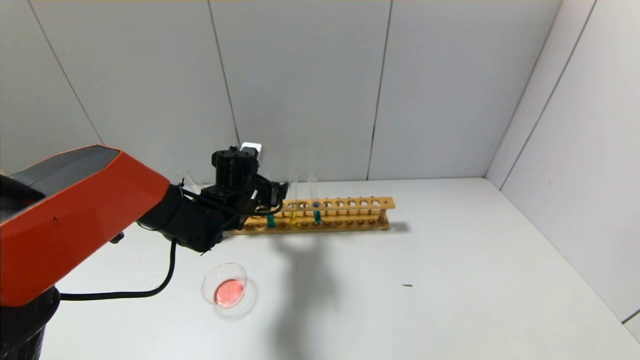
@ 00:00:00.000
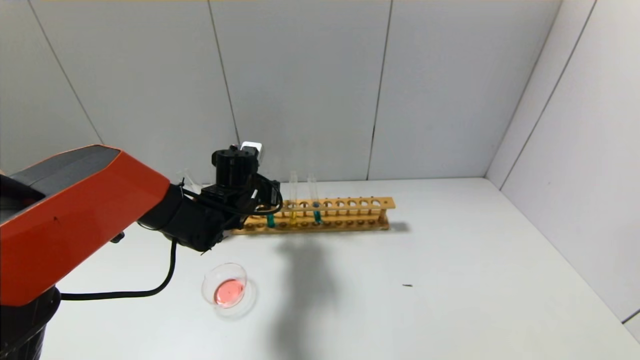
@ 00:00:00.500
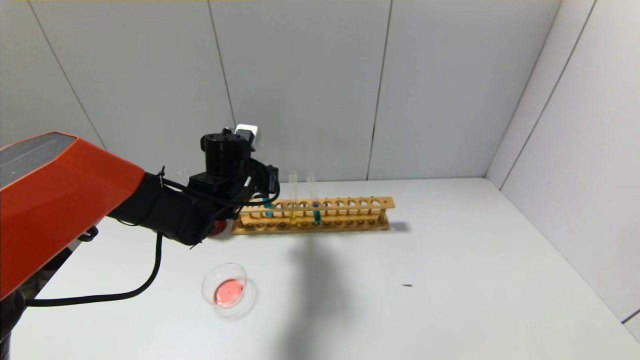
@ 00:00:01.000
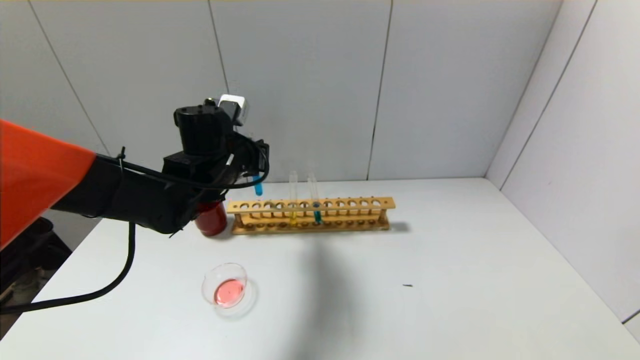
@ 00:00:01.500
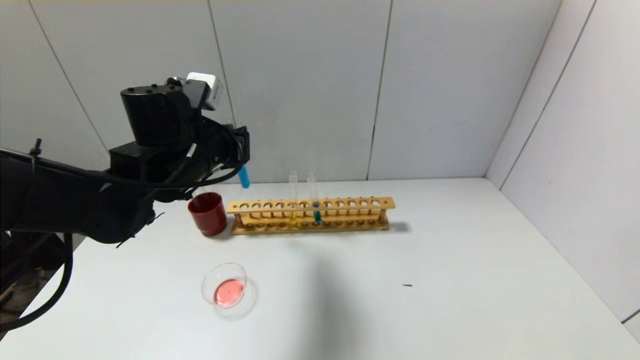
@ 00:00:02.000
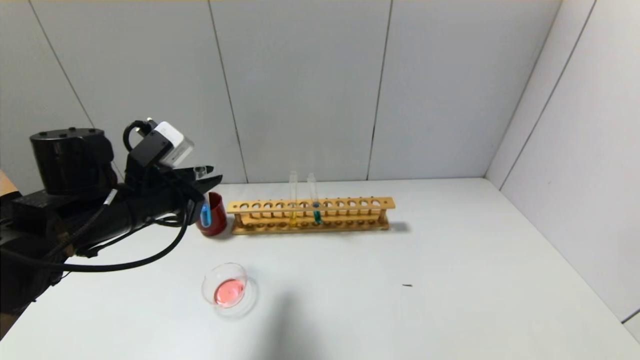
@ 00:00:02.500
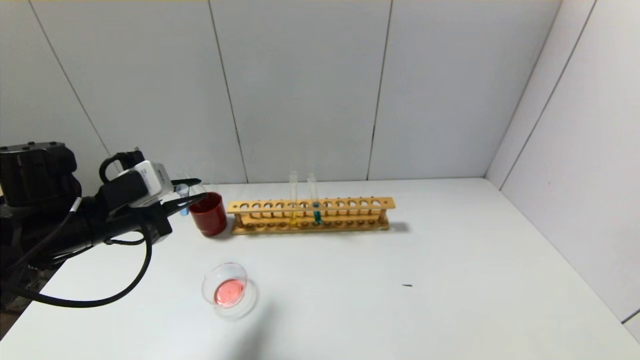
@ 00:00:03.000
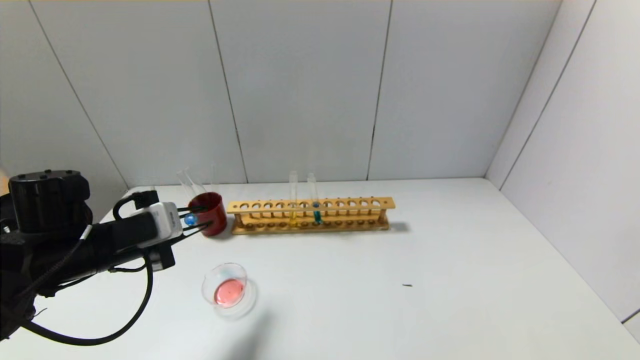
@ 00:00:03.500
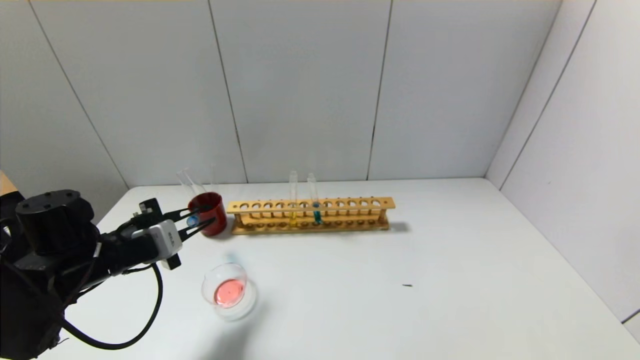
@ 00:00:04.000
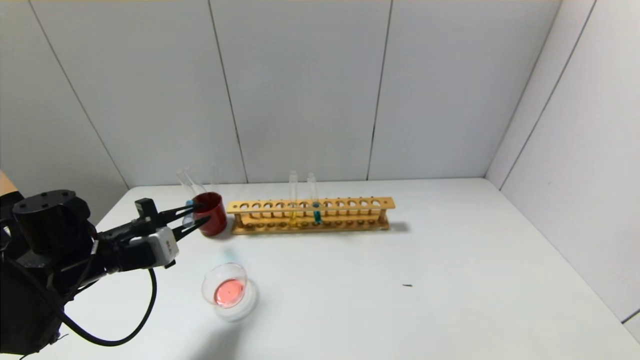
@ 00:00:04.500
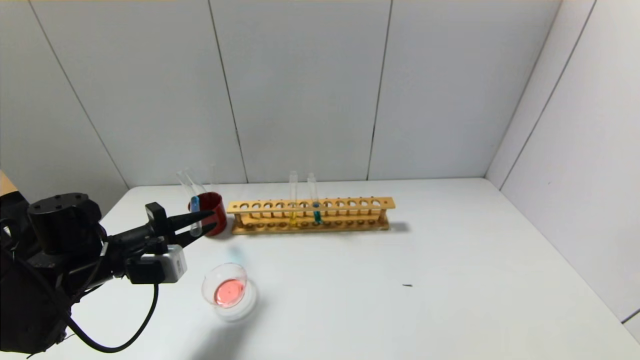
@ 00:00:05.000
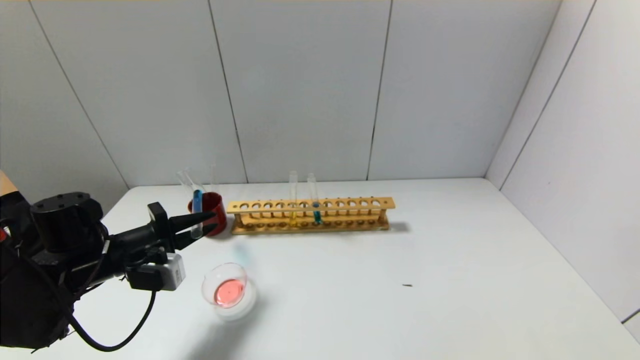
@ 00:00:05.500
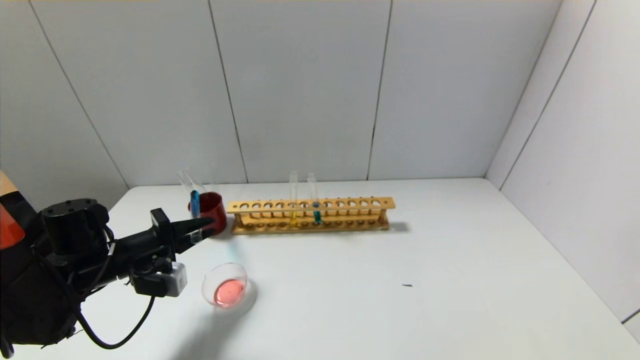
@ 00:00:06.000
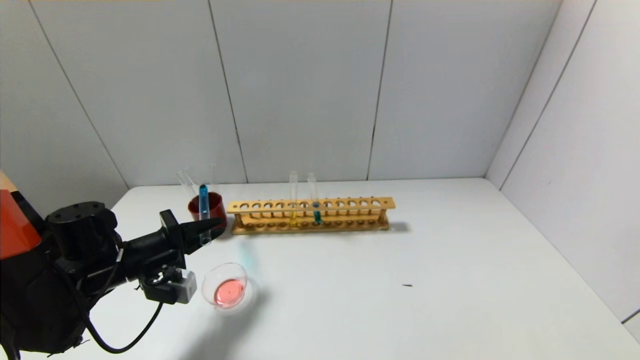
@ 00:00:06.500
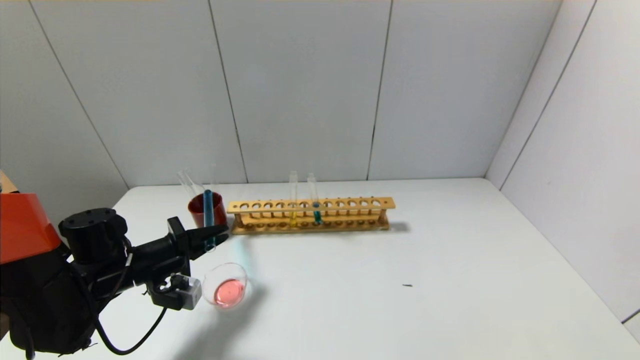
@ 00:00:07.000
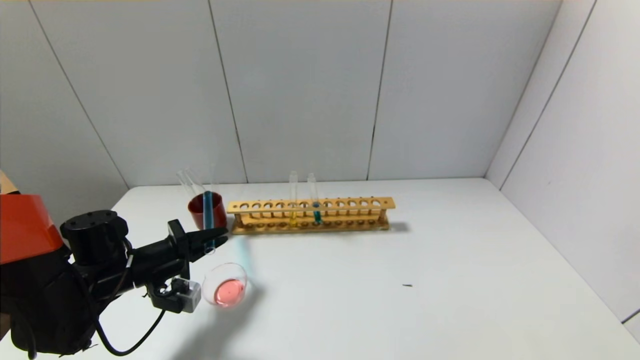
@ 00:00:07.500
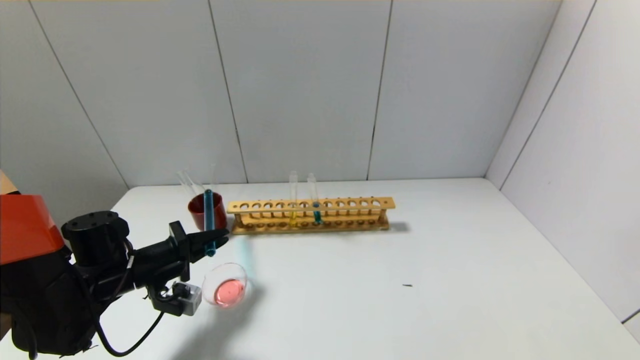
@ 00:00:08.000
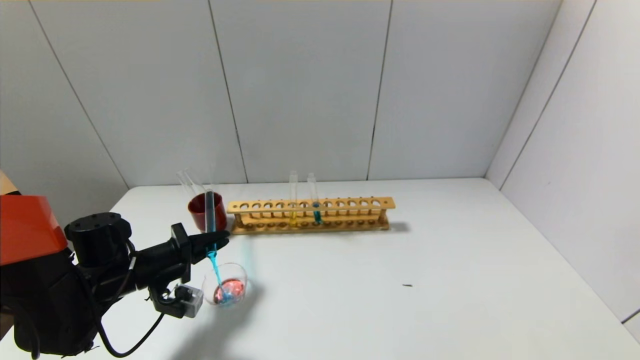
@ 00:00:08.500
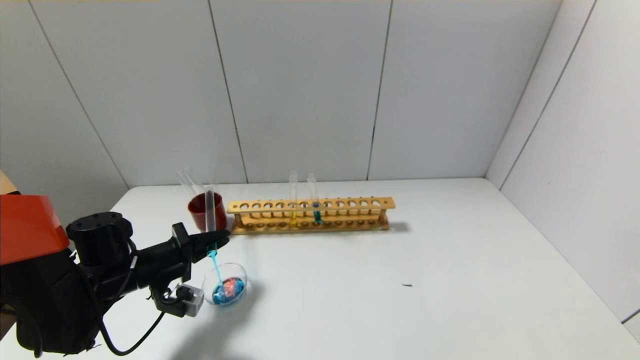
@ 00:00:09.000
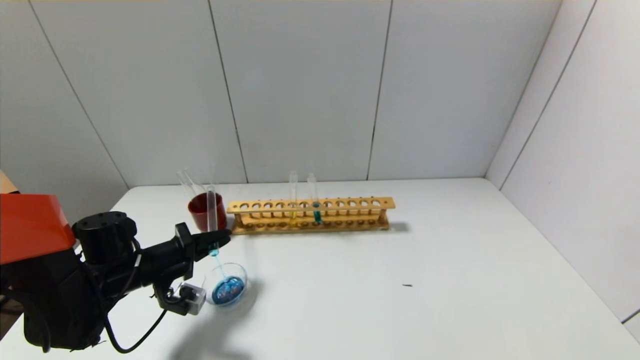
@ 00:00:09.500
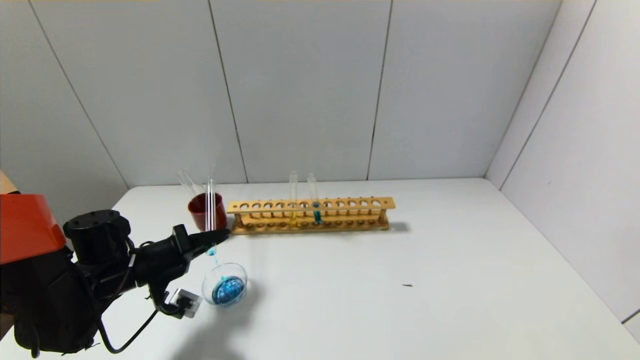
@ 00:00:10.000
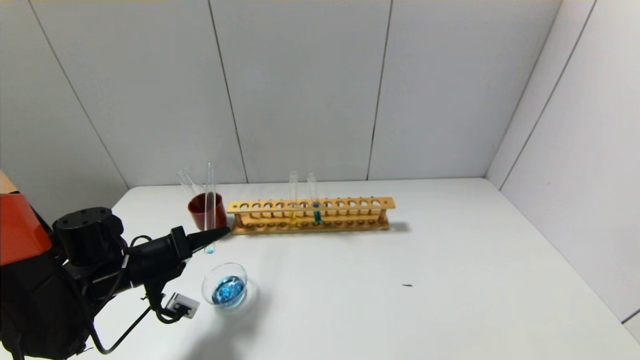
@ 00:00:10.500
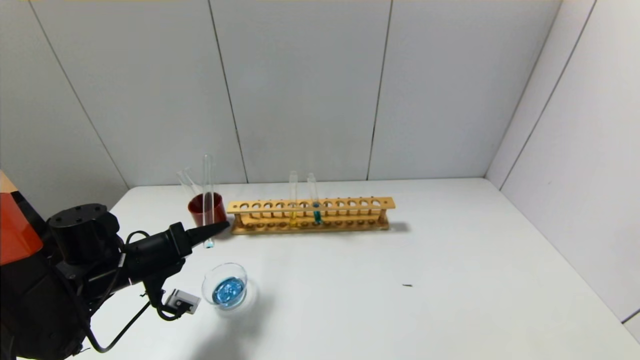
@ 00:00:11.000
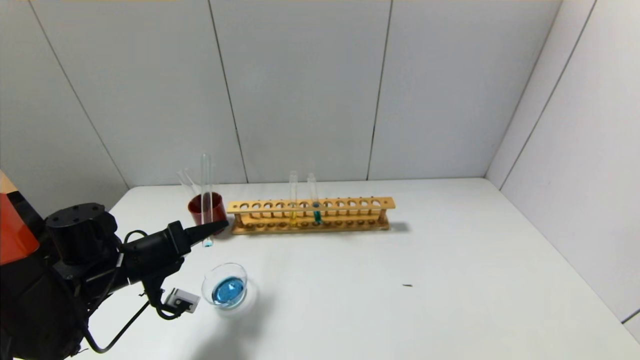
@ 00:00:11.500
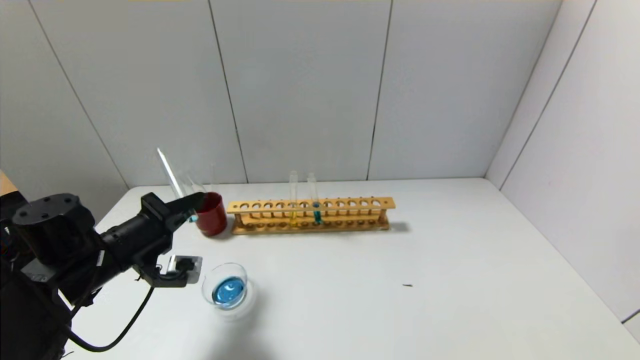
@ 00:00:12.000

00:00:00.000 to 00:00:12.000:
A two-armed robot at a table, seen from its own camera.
Step, 00:00:01.000 to 00:00:11.500: Pour the blue reagent into the graduated cylinder with the left gripper.
00:00:00.000 to 00:00:02.000: The left gripper shifts some 15 cm upward and backward, and closes up.
00:00:02.000 to 00:00:04.000: The left gripper is displaced downward, to the left and backward by some 15 cm.
00:00:06.000 to 00:00:08.000: The grippers make only small movements.
00:00:08.000 to 00:00:10.000: The grippers make only small movements.
00:00:10.000 to 00:00:12.000: The left gripper shifts approximately 5 cm upward.

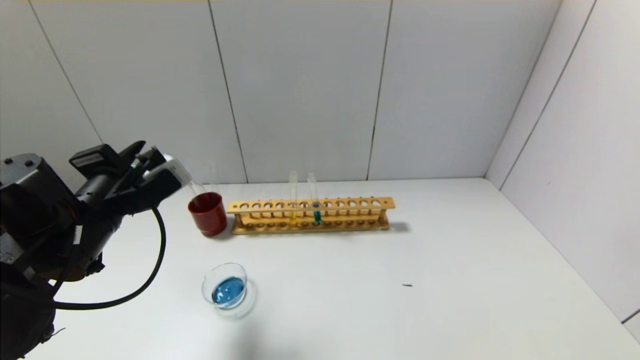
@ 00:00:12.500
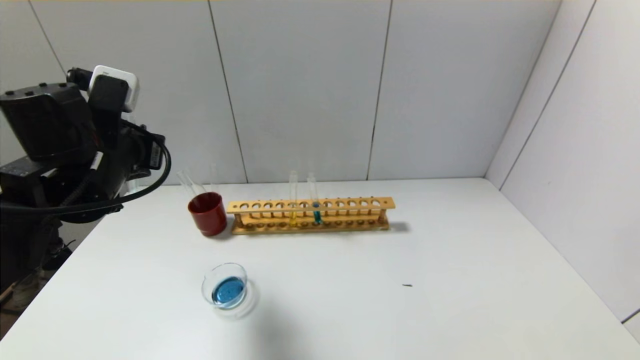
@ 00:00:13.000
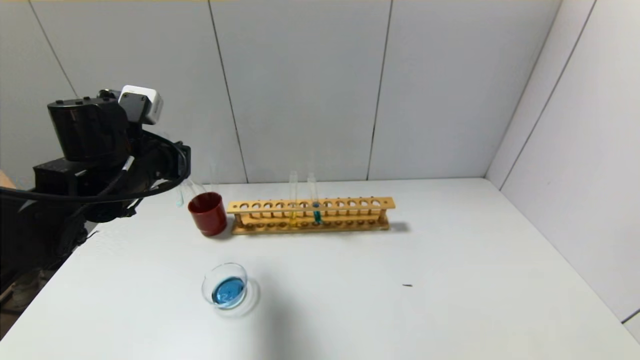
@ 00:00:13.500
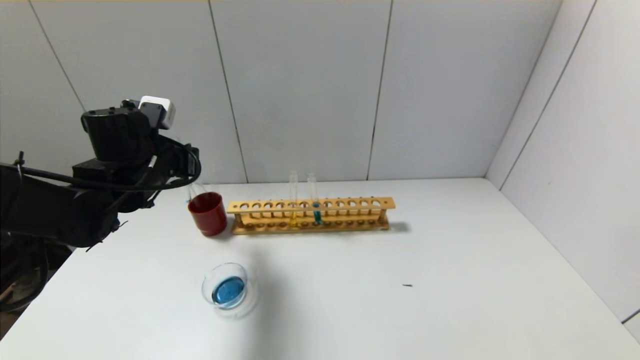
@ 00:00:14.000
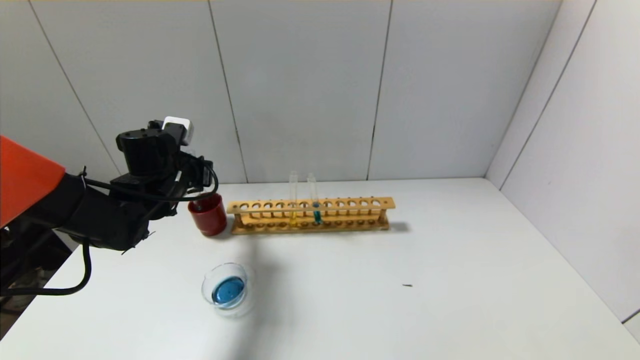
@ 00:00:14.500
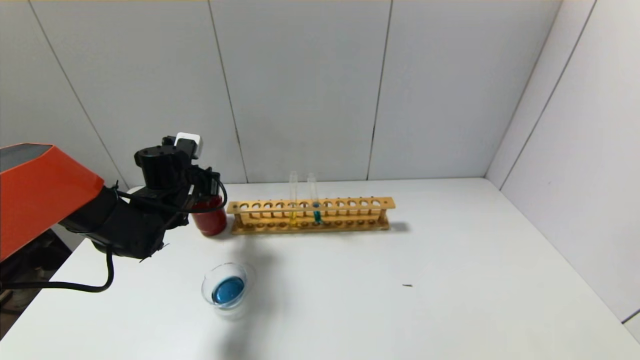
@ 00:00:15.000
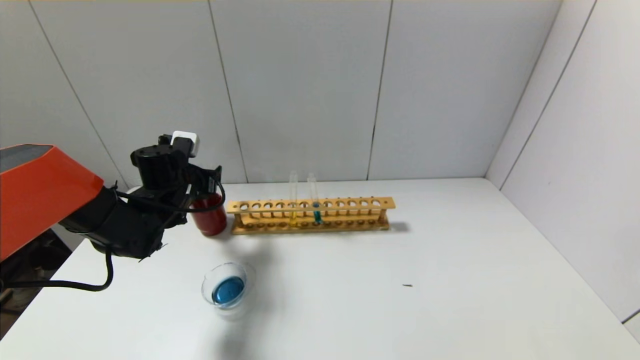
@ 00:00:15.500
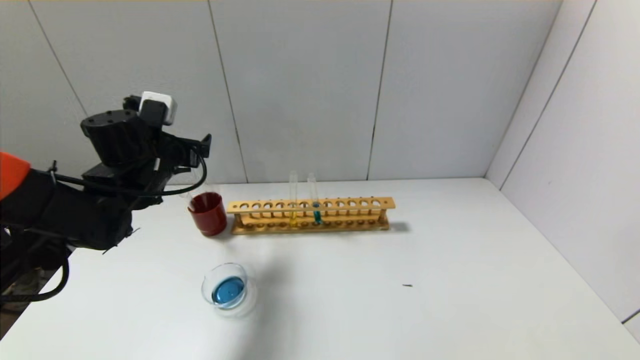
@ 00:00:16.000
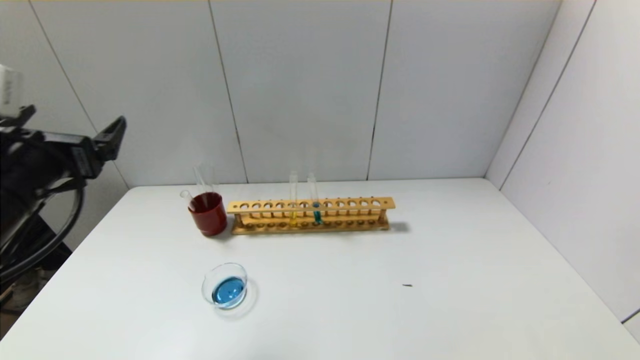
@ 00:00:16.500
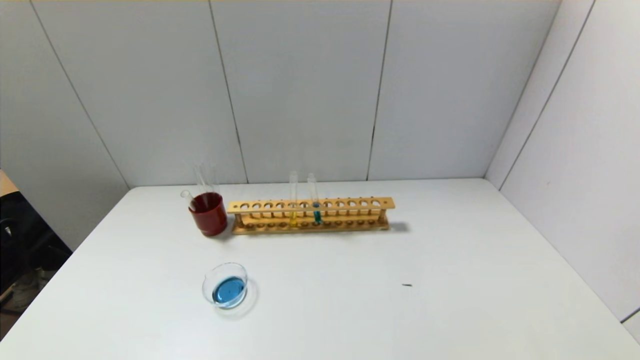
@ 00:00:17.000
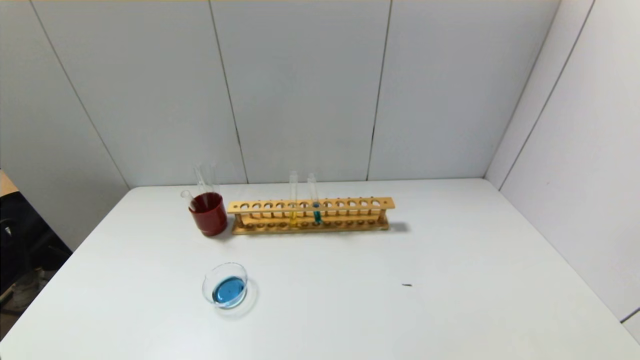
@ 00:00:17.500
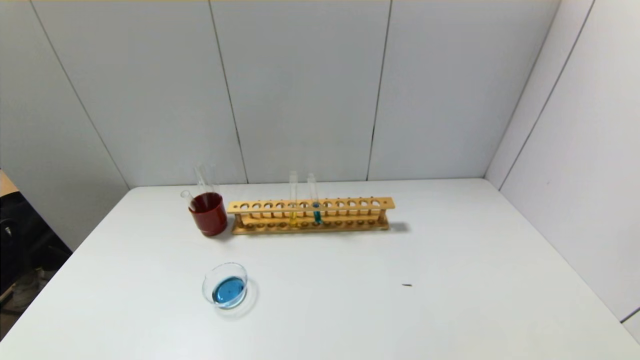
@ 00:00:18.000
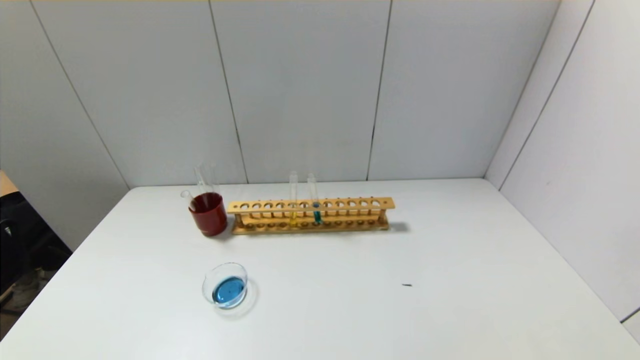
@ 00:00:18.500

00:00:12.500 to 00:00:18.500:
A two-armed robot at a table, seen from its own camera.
Step, 00:00:12.500 to 00:00:15.000: Place the test tube into the brown cup with the left gripper.
00:00:12.500 to 00:00:14.500: The left gripper moves forward, some 15 cm.
00:00:14.500 to 00:00:16.500: The left gripper heads backward and upward, covering about 20 cm, and opens its fingers.
00:00:16.500 to 00:00:18.500: The left gripper heads backward and downward, covering approximately 25 cm.

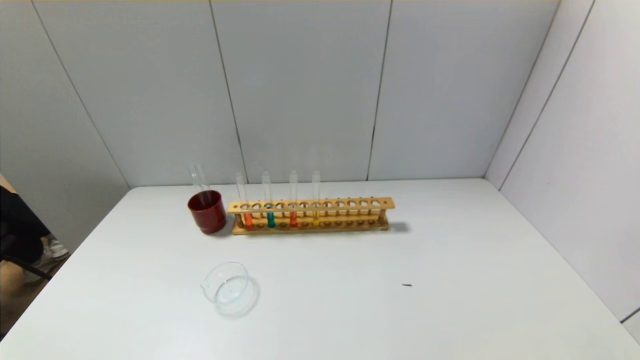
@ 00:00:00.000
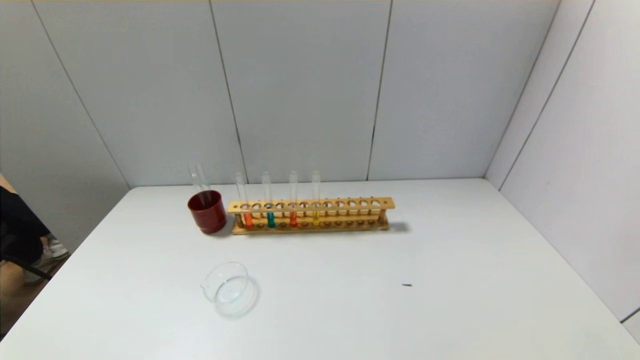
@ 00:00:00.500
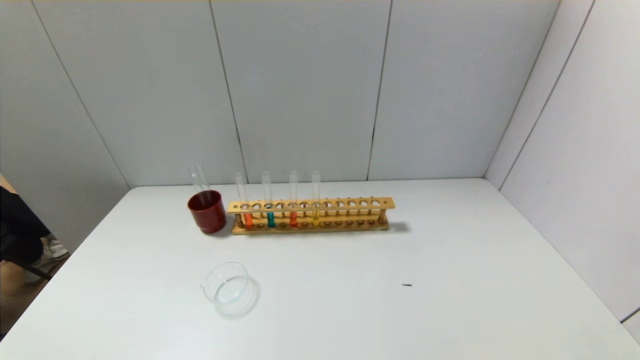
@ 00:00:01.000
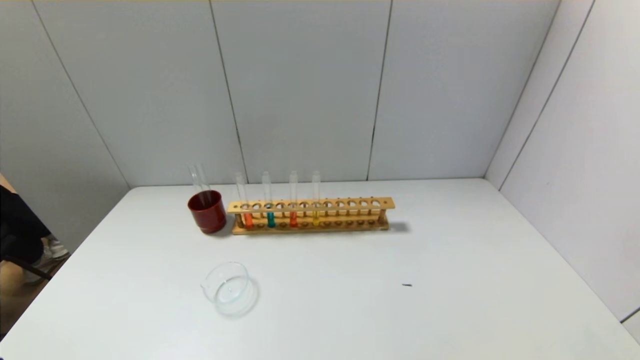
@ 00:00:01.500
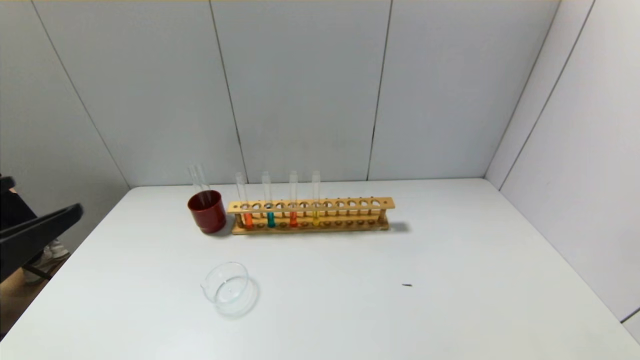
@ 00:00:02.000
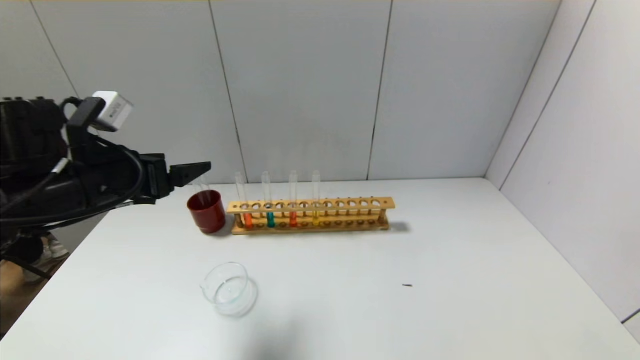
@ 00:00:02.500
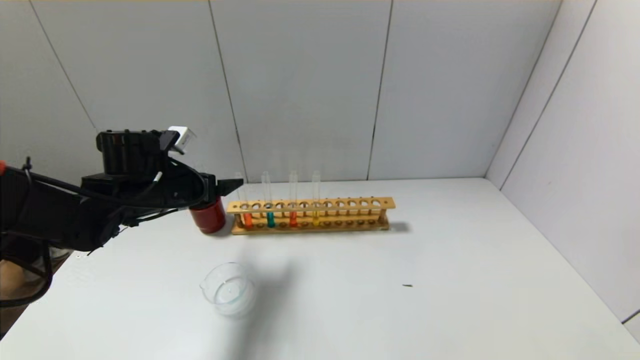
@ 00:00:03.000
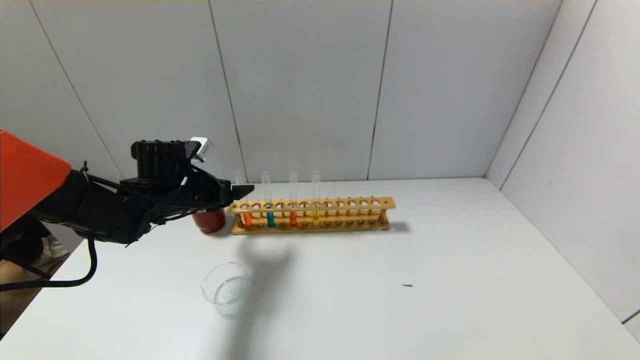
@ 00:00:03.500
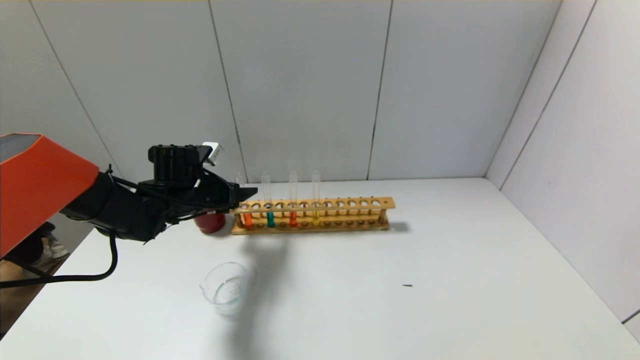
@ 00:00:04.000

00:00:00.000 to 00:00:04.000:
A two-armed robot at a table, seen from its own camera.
00:00:00.000 to 00:00:02.000: The left gripper heads upward and forward, covering roughly 20 cm.
00:00:02.000 to 00:00:04.000: The left gripper goes roughly 35 cm forward and downward.
